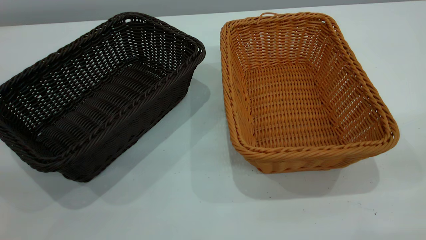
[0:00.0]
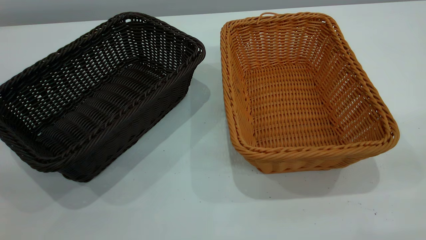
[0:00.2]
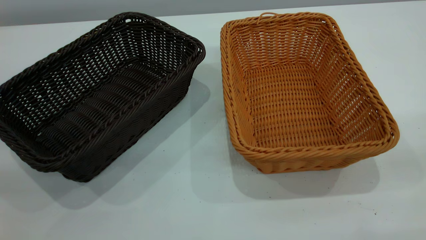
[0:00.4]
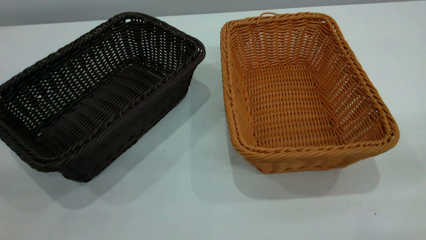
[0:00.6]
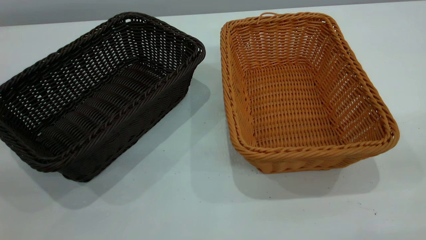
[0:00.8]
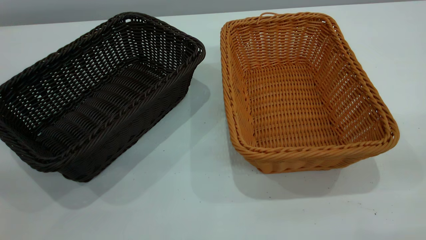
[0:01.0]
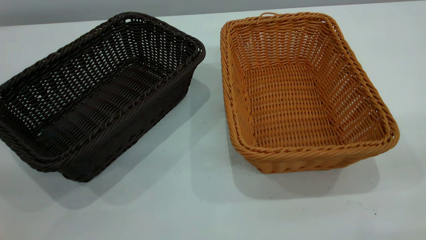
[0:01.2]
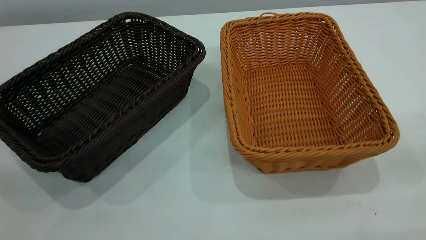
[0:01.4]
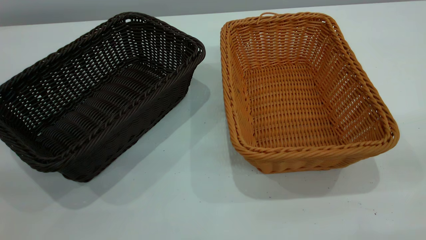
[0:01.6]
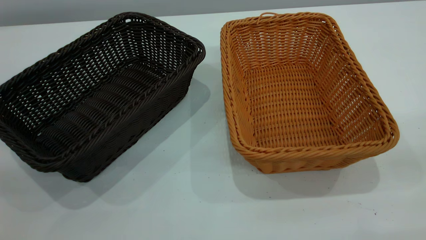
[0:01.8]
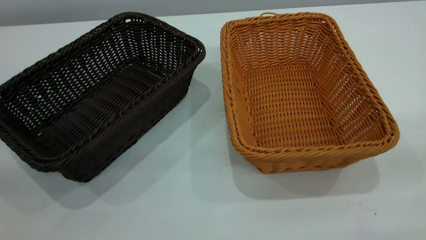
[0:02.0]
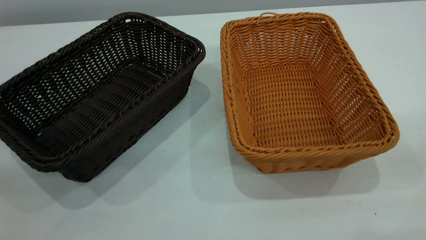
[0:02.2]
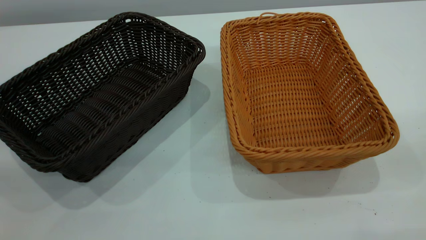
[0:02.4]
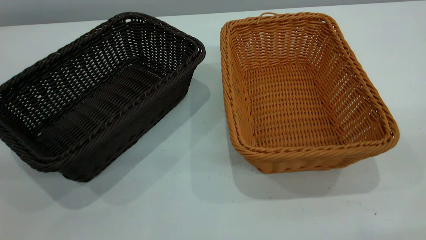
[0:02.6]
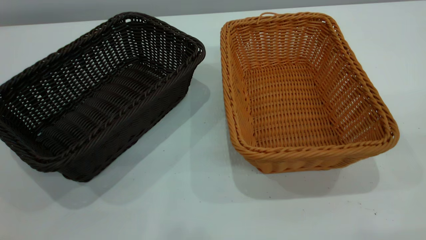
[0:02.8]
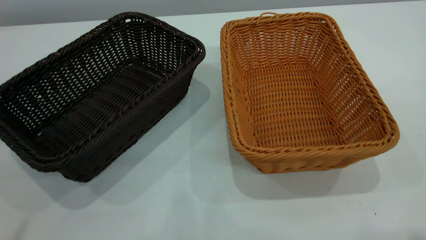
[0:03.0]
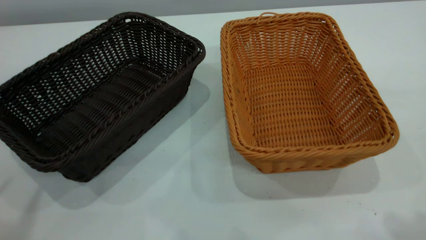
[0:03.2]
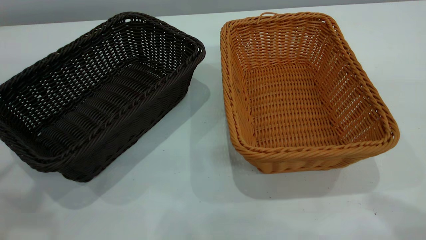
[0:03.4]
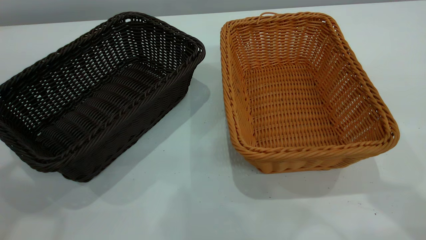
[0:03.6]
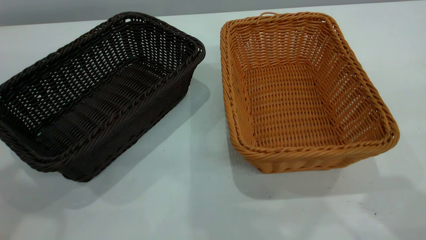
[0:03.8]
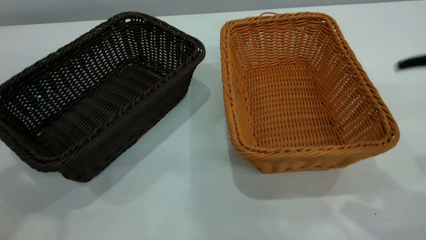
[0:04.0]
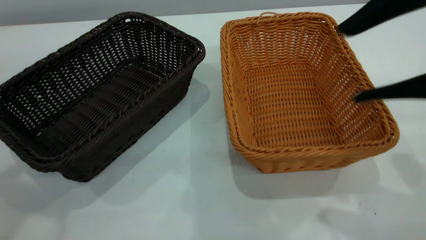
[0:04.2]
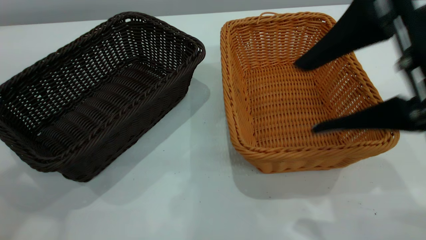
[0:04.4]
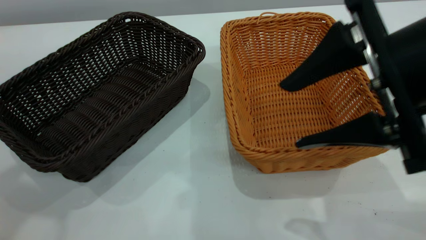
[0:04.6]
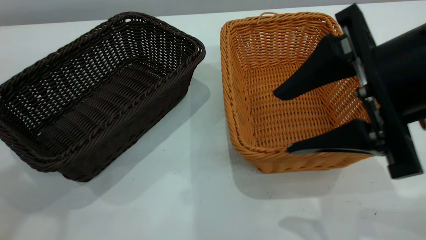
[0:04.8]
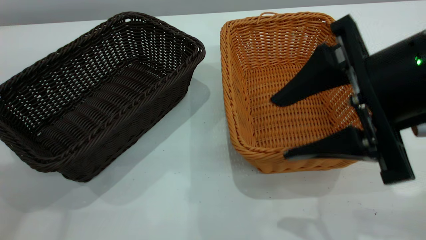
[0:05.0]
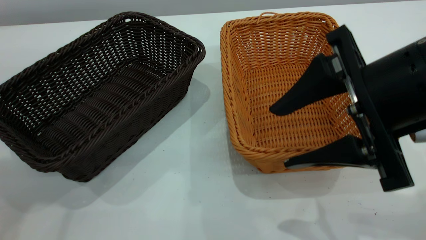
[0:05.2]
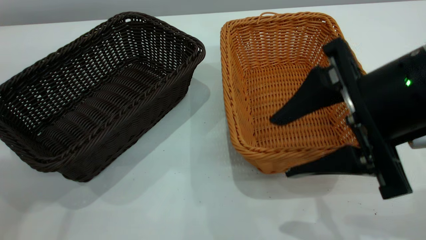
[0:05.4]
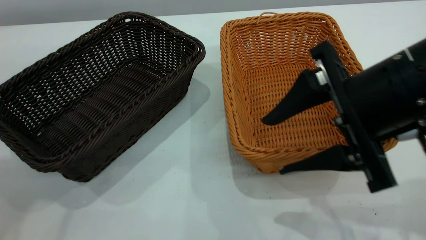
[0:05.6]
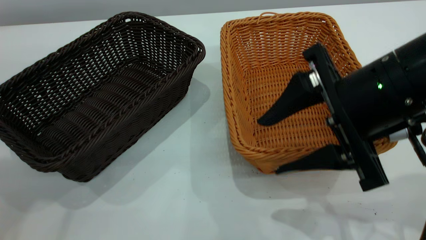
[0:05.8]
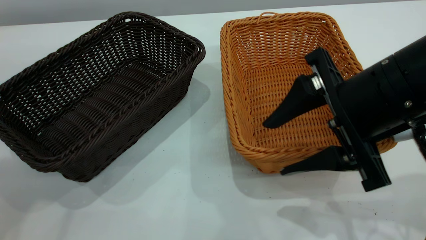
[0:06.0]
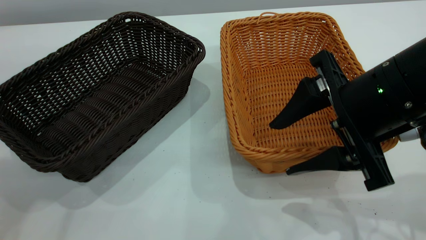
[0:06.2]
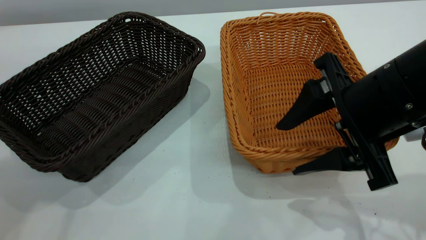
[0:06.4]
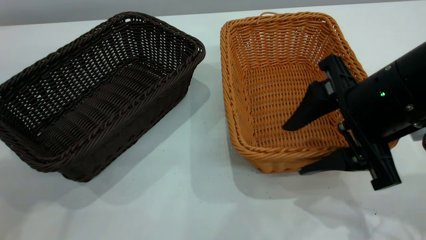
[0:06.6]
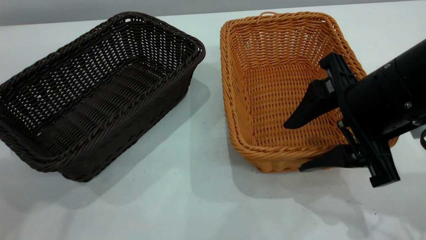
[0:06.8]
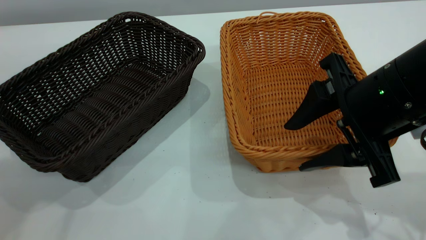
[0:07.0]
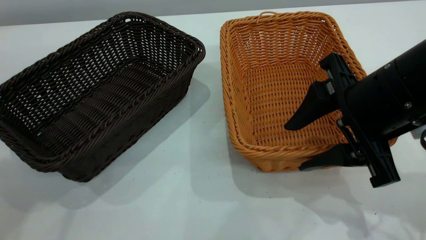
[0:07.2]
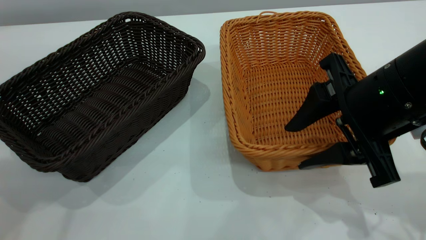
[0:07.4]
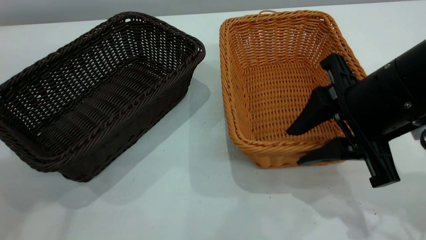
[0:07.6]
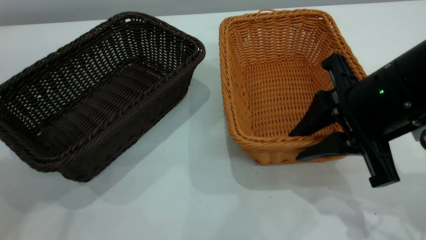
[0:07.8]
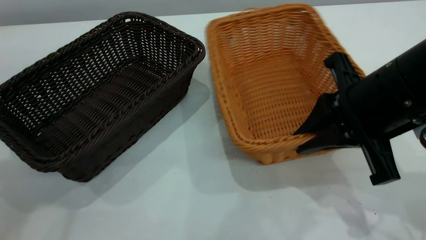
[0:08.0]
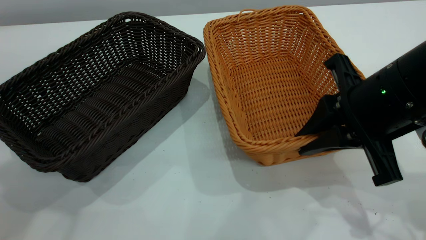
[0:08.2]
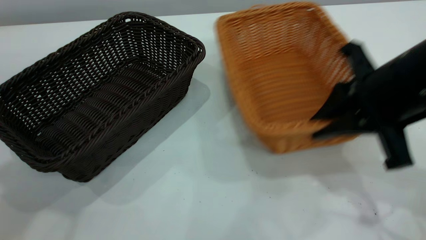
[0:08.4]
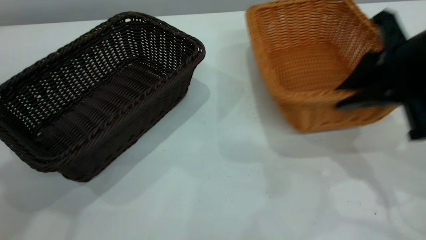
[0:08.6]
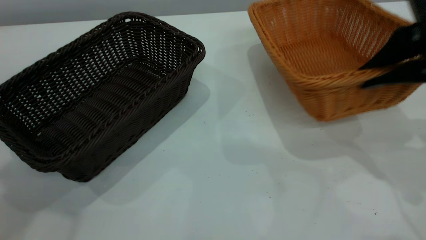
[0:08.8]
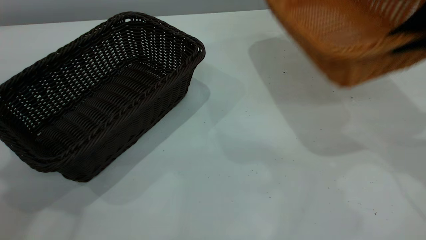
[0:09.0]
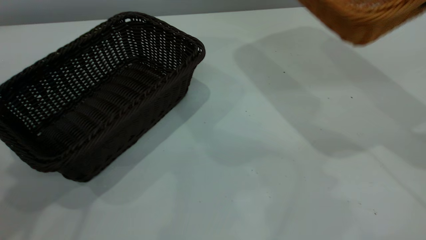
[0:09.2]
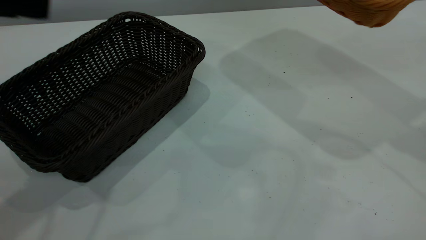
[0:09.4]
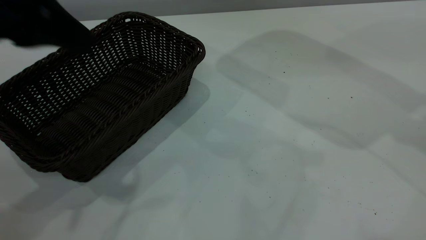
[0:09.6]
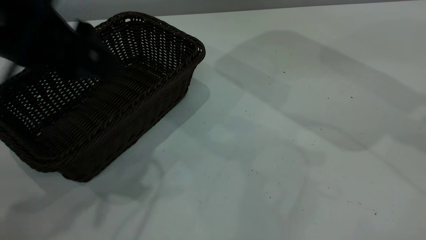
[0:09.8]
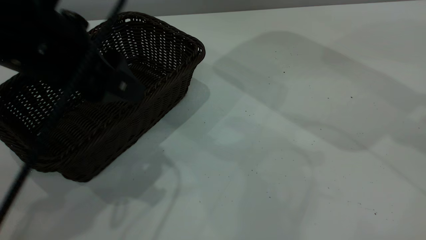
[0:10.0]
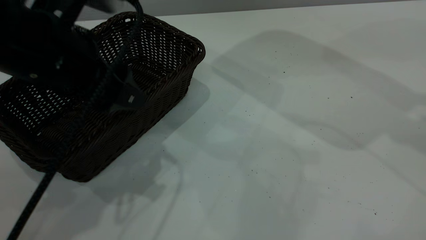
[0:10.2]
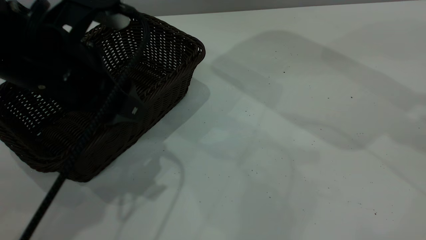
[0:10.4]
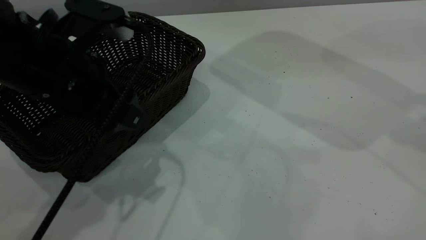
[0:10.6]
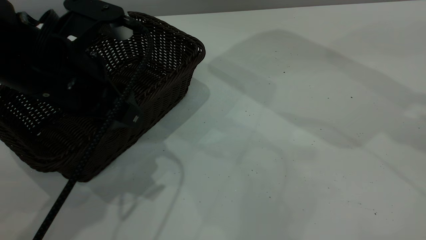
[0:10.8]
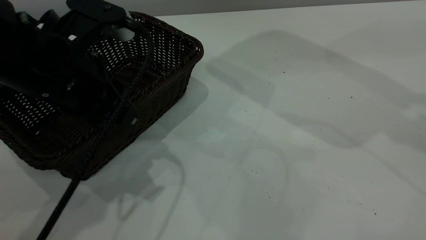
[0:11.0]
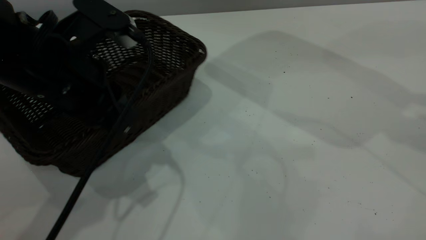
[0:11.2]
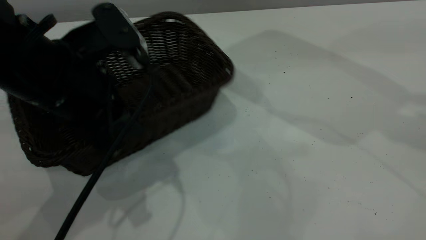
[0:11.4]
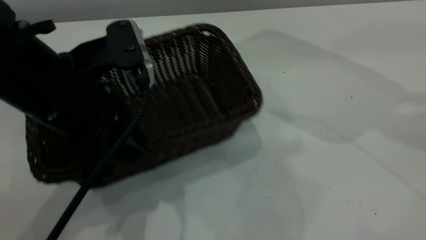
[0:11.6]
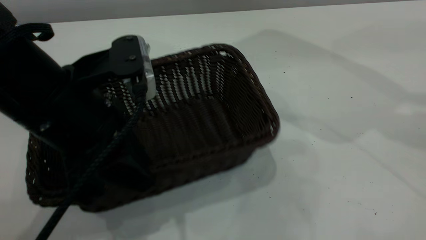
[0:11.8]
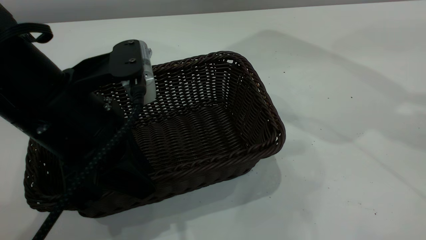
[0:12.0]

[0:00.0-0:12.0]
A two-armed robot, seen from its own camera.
Task of the whole recording: the left gripper grasp the black basket and place it in the center of the table, the right gripper grasp the brown basket and place it inside the black one.
Step, 0:00.0 to 0:08.8: Pick up the light basket with the right gripper.
0:00.0 to 0:01.6: The two grippers keep their place.
0:03.0 to 0:04.4: The right gripper shifts approximately 20 cm downward, forward and to the left.
0:04.4 to 0:06.0: The right gripper heads downward, covering roughly 5 cm.
0:06.0 to 0:07.6: The right gripper closes.
0:07.6 to 0:09.0: The right gripper shifts some 15 cm to the right and upward, and closes up.
0:09.0 to 0:10.4: The right gripper moves upward, about 10 cm. The left gripper heads downward and to the right, covering some 20 cm.
0:10.4 to 0:12.0: The left gripper closes its fingers.

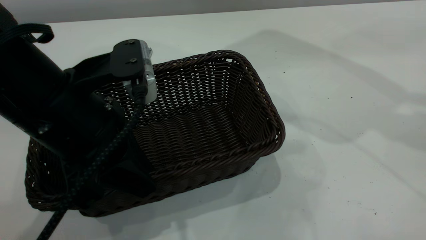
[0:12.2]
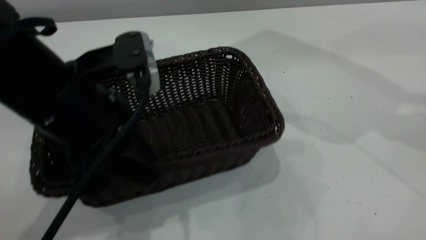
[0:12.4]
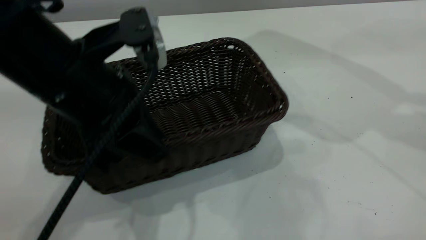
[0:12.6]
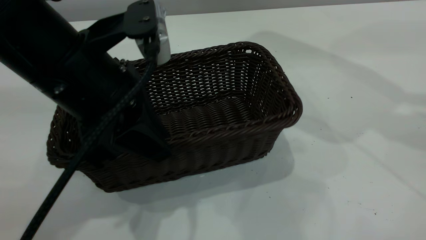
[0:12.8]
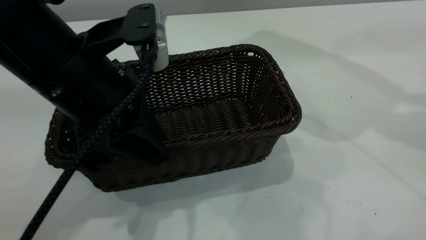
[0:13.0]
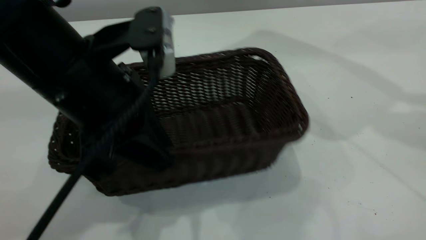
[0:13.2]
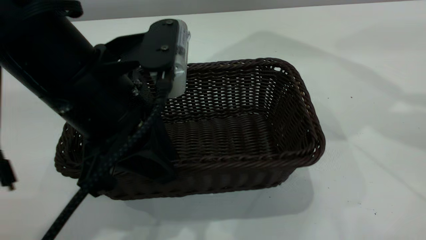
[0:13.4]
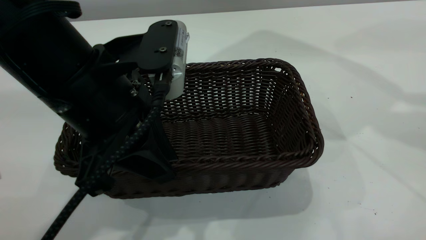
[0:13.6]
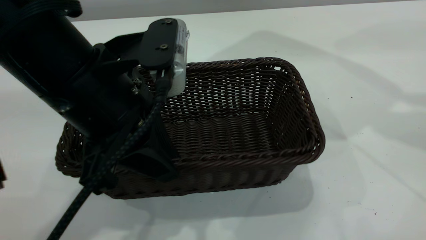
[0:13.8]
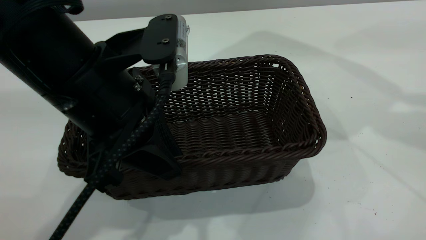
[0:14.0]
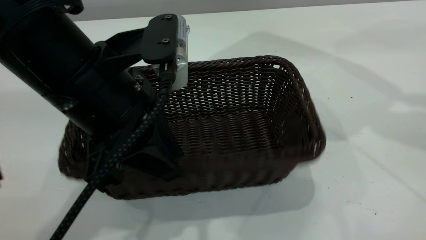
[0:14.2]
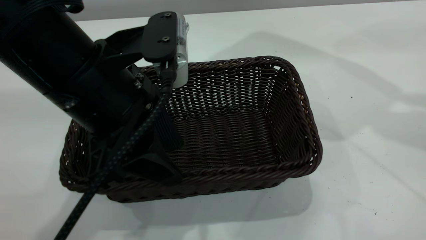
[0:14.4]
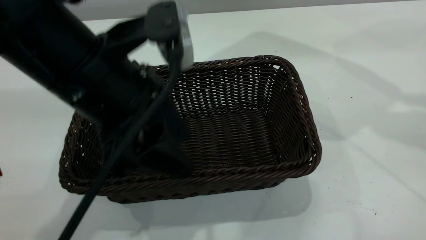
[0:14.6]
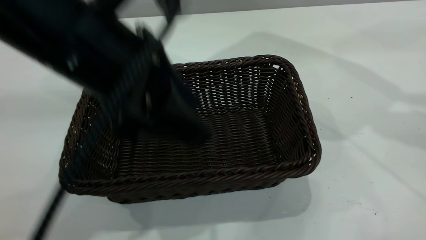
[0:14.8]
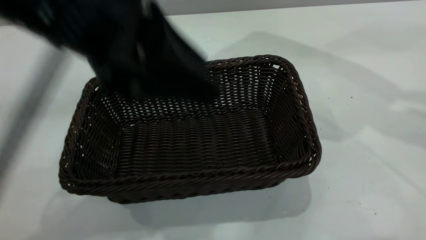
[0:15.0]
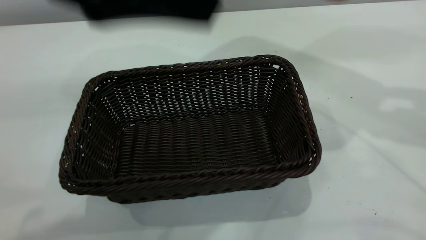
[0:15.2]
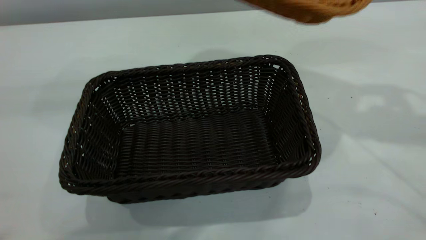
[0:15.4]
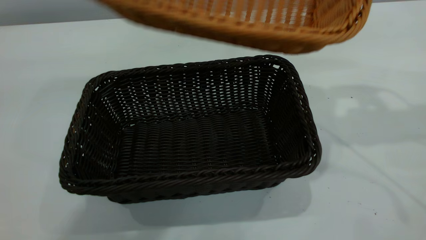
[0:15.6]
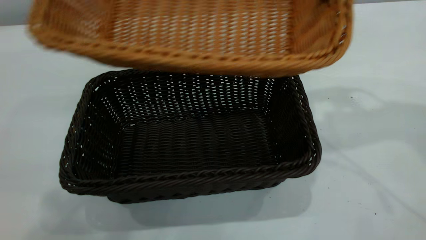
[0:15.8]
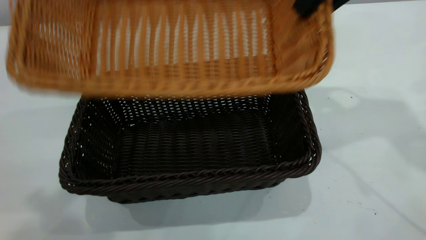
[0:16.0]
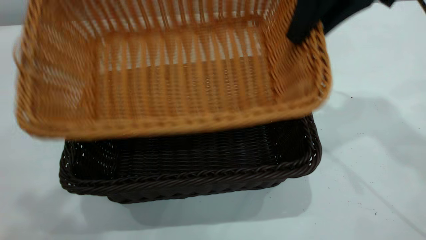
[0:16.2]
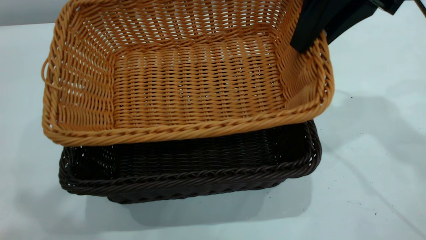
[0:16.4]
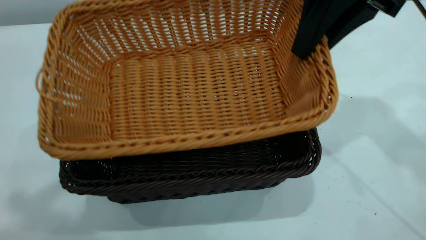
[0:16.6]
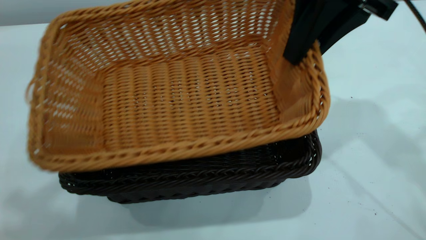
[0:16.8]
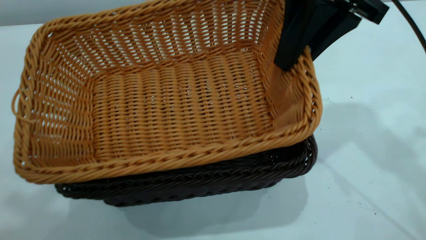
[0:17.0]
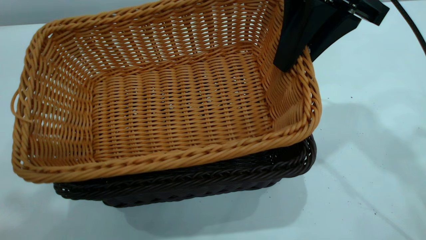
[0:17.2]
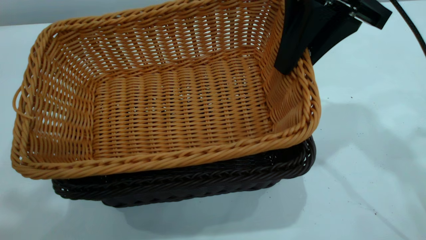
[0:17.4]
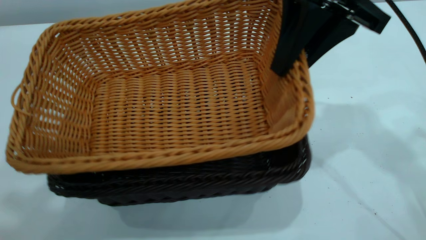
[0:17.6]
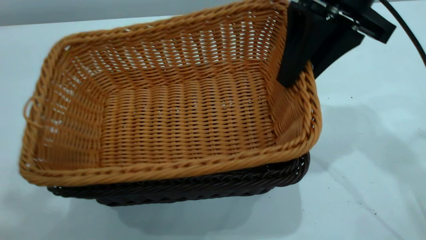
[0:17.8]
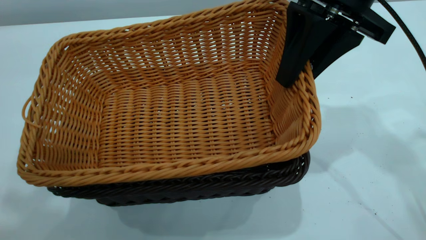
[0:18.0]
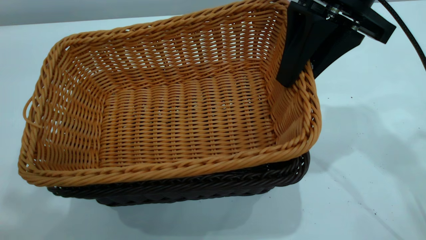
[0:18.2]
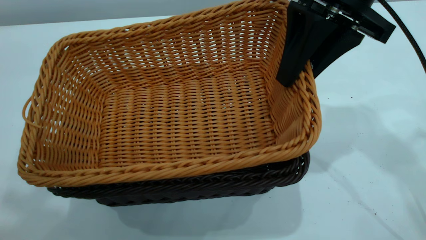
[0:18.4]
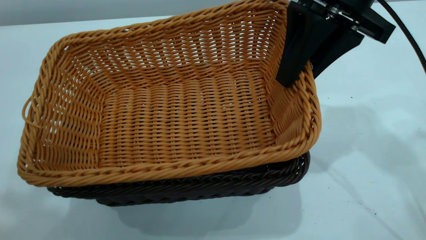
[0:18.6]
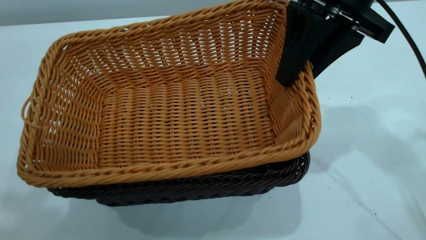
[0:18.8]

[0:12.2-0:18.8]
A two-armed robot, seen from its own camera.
Task of the whole recording: the left gripper grasp the black basket and place it in the center of the table, the right gripper grasp the brown basket and place it inside the black one.
Step, 0:12.2 to 0:14.8: Move the dark basket to the center of view.
0:13.8 to 0:15.4: The right gripper moves approximately 5 cm. The left gripper travels upward by roughly 20 cm, and opens up.
0:15.4 to 0:17.2: The right gripper goes roughly 10 cm to the left and downward, while the left gripper goes roughly 10 cm upward and to the left.
